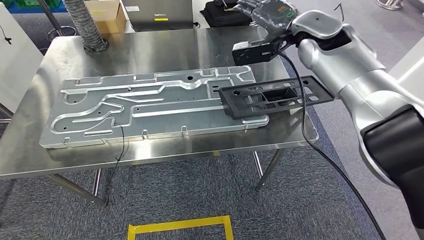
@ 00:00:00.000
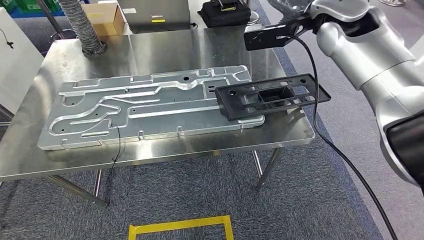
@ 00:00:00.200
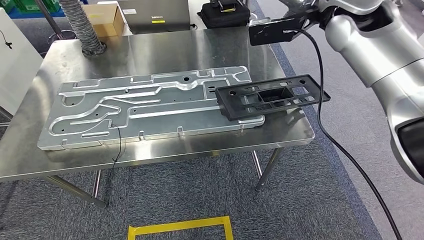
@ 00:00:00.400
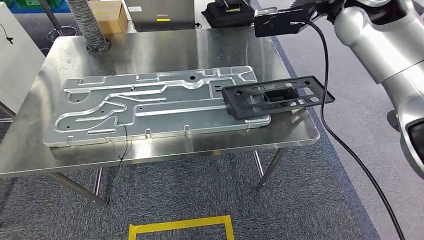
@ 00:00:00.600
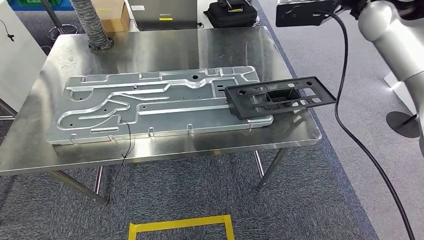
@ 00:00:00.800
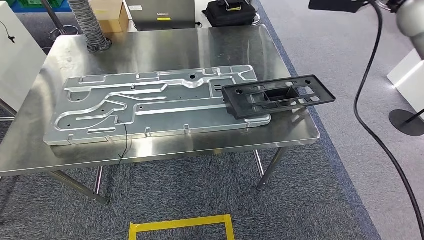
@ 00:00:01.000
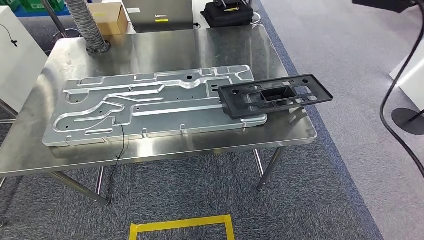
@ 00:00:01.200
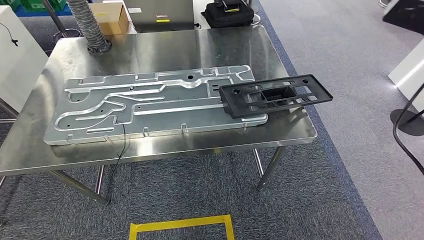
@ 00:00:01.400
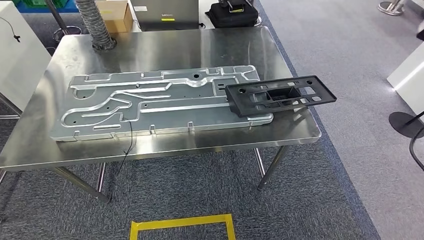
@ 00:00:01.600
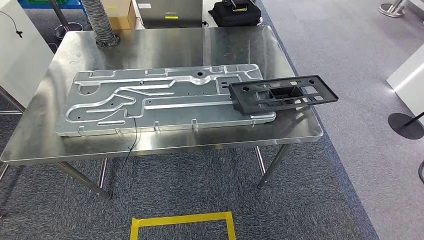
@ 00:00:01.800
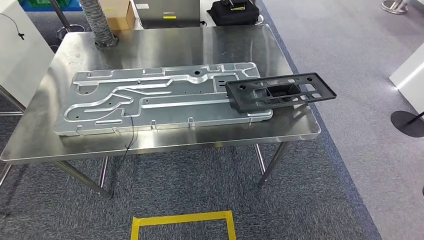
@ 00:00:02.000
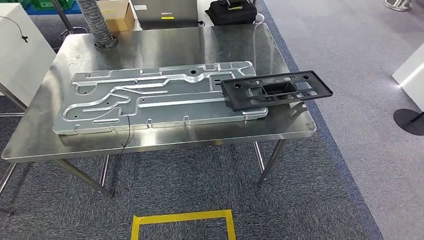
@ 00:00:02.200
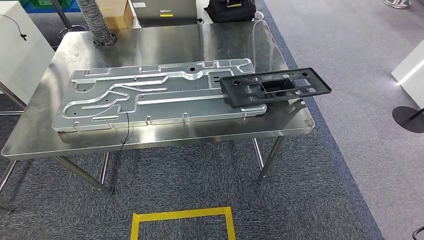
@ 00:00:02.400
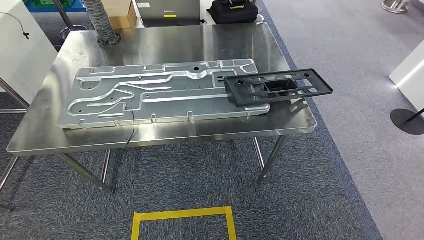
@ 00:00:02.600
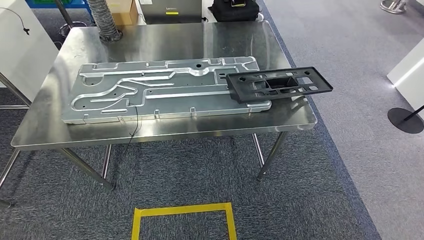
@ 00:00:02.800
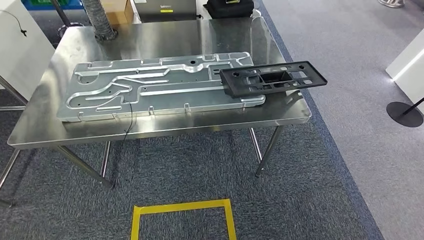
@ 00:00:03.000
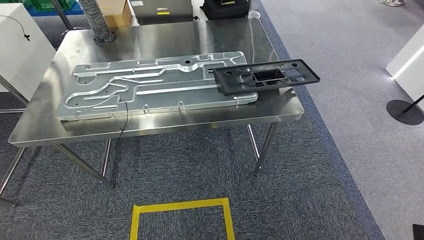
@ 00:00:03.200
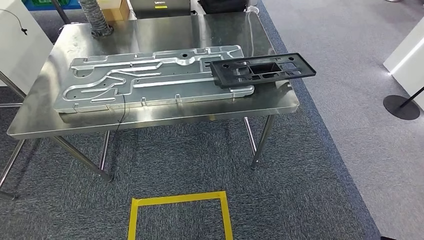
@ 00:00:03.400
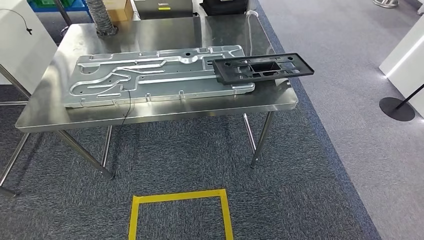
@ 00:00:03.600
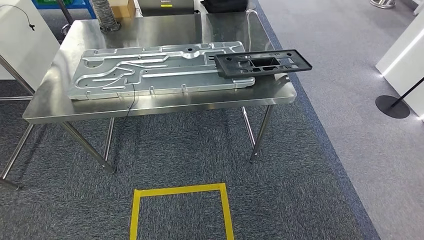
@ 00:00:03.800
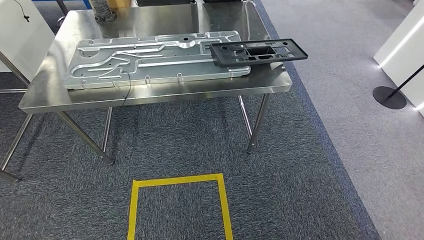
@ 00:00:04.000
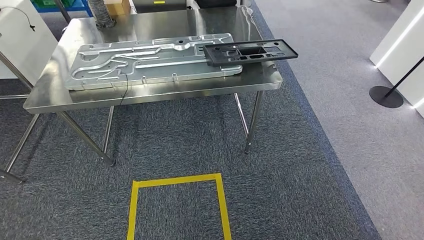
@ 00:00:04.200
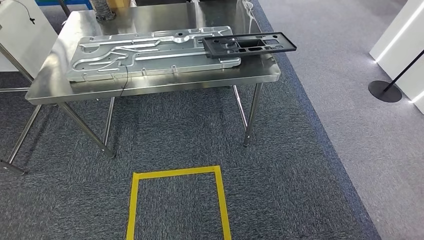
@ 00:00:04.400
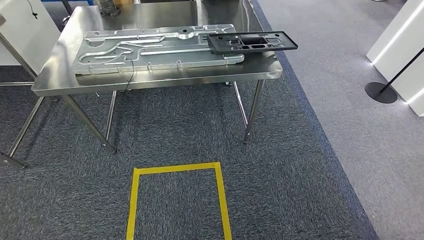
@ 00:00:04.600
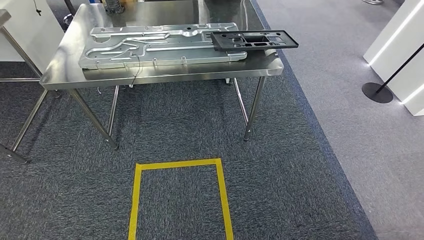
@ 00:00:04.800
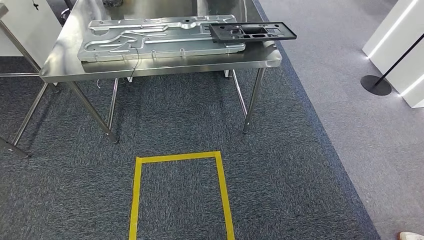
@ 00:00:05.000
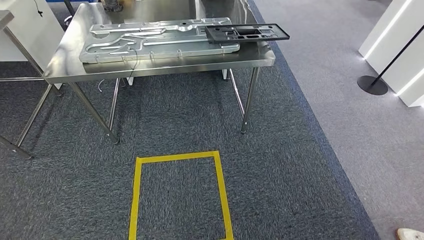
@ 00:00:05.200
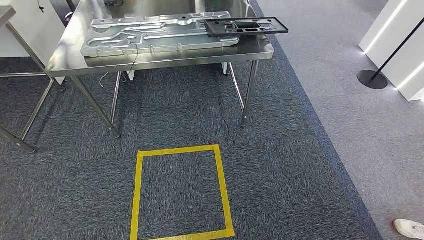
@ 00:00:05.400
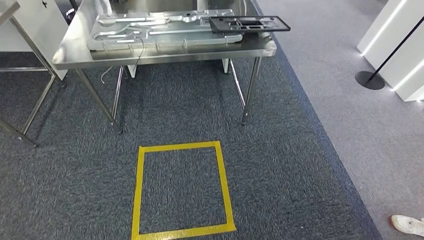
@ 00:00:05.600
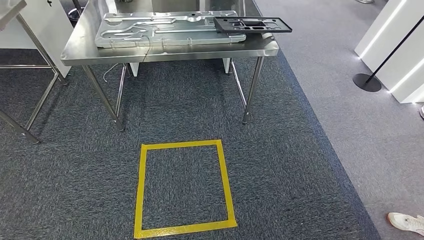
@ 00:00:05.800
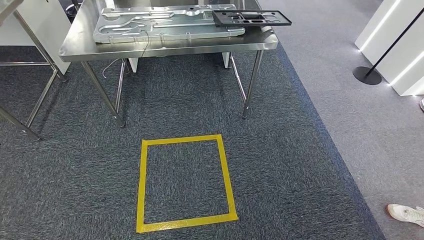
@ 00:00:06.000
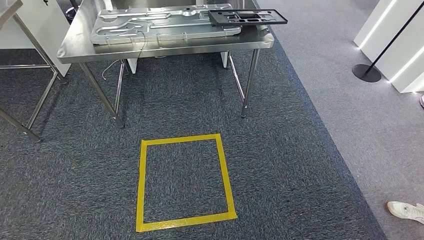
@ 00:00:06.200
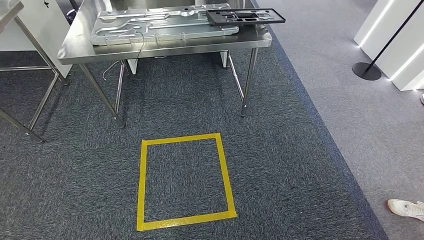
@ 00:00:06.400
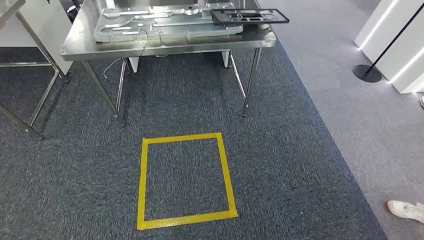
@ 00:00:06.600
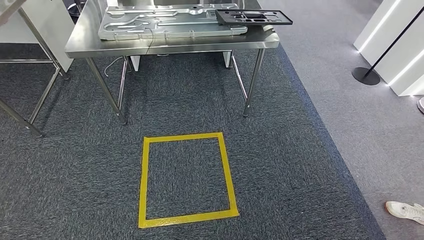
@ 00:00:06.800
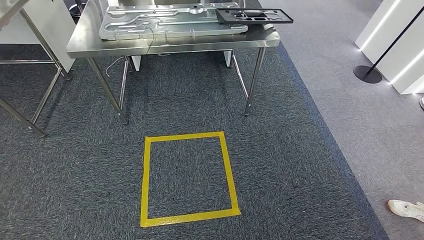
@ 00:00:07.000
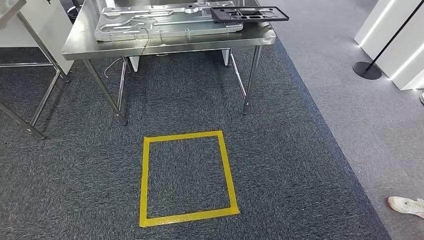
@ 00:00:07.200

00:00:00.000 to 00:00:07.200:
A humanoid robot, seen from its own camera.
Step, 00:00:00.200 to 00:00:07.000: Move to the initial position of the shelf.
